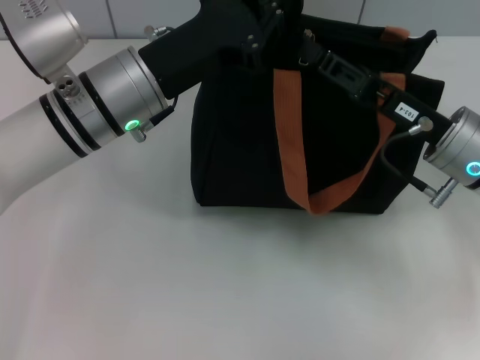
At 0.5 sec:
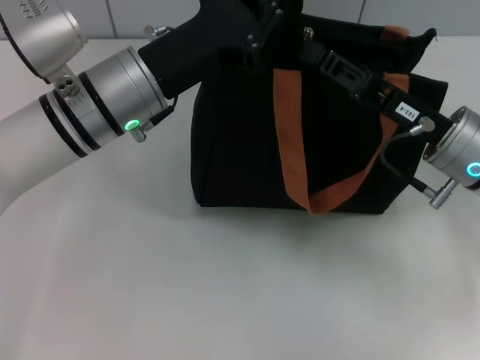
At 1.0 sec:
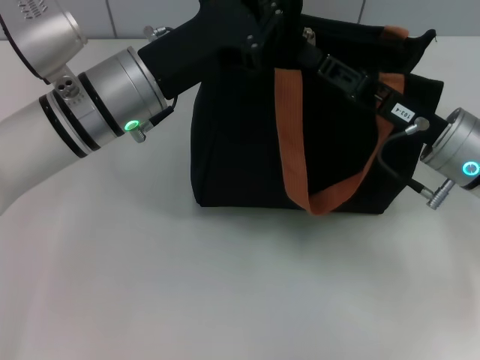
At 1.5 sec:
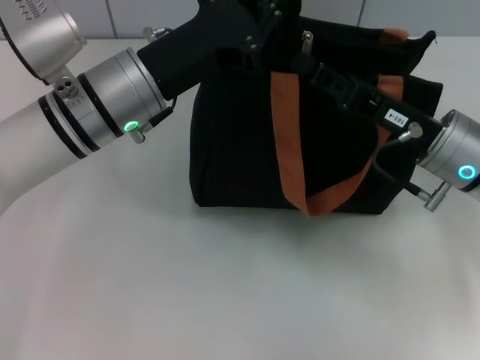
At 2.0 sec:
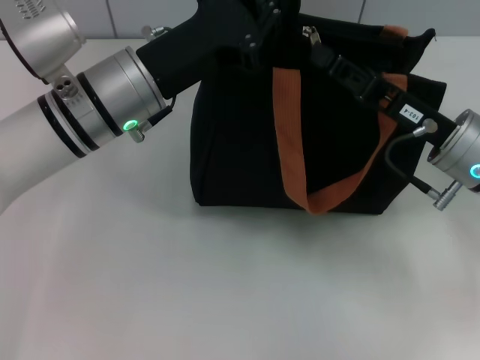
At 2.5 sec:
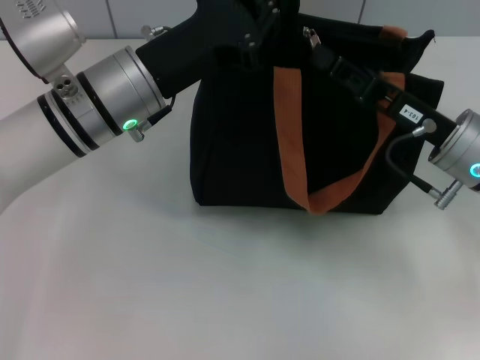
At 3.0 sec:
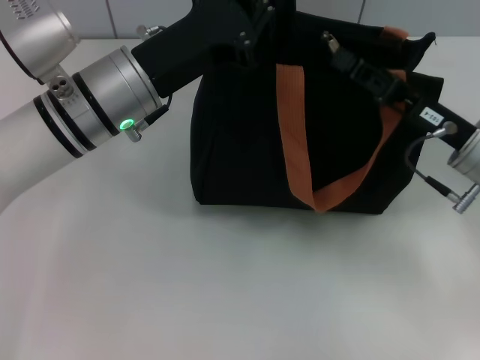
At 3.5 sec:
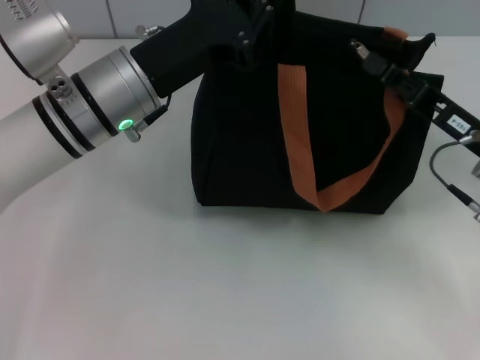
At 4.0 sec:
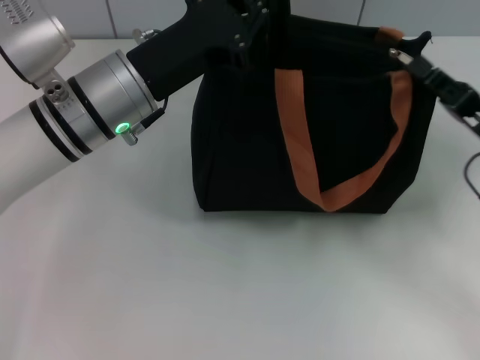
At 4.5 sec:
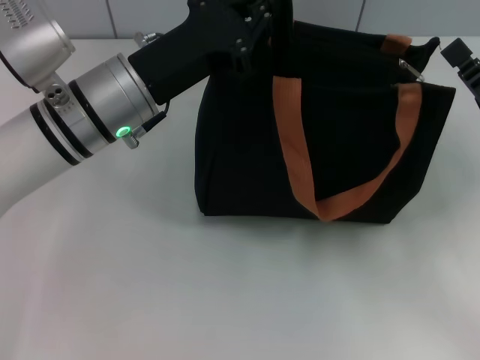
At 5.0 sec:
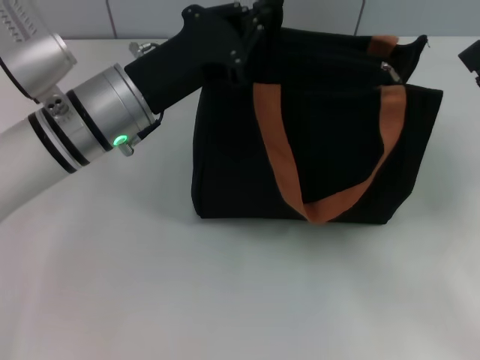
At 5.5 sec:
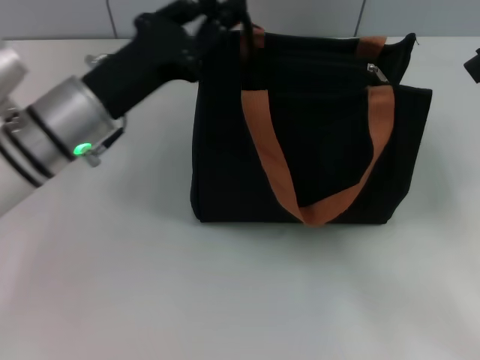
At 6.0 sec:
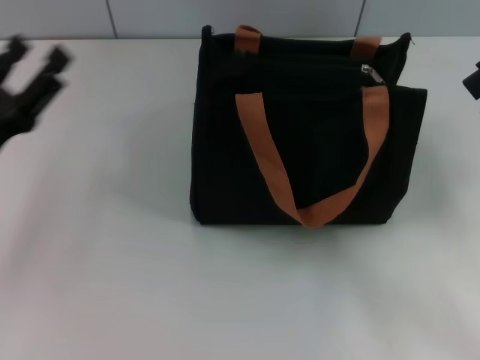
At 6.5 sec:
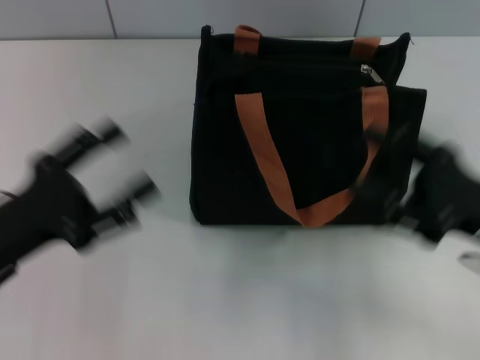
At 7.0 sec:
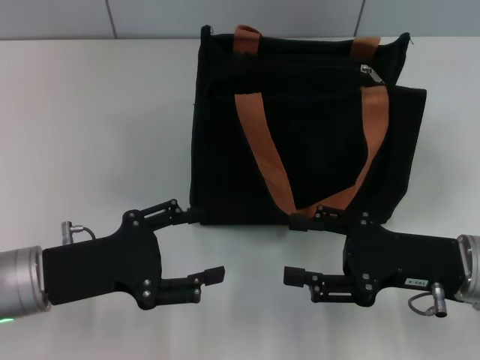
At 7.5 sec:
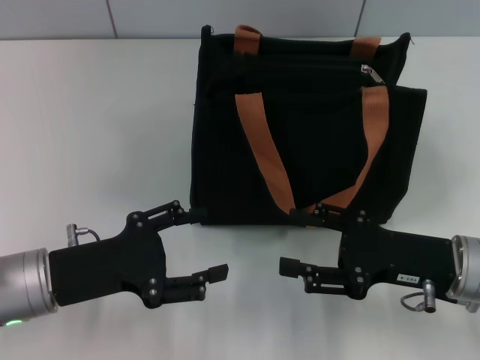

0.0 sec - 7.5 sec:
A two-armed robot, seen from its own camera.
Step, 0.0 sec - 4.0 sec: Pull up the zipper with your right hand.
Step, 4.5 sec - 5.5 sec: Grab the zipper with your left hand.
0.0 sec - 2.0 sec: The right gripper closes up.
2.0 sec - 4.0 sec: The right gripper goes approximately 5 cm to the right.
4.0 sec - 5.5 sec: The right gripper moves backward, roughly 5 cm, and opens up.
5.5 sec - 7.5 sec: The left gripper moves backward, to the left and downward, some 15 cm, and opens its fingers. The right gripper travels to the left by approximately 5 cm.
